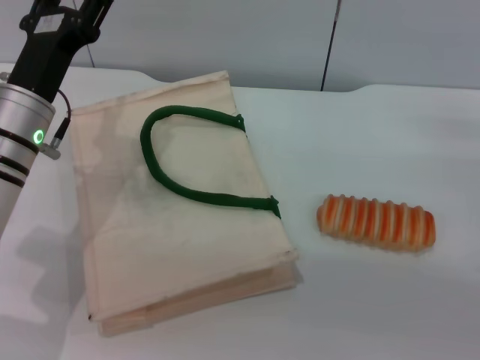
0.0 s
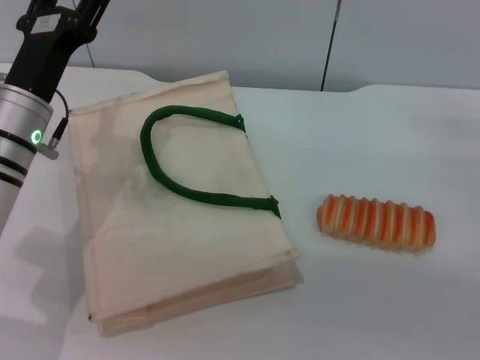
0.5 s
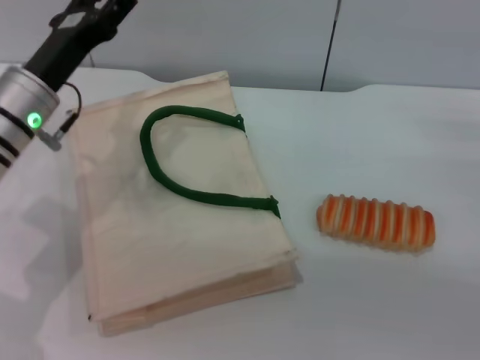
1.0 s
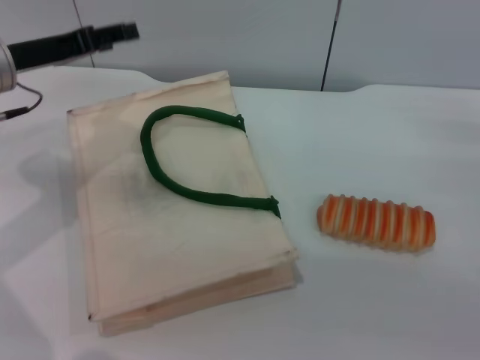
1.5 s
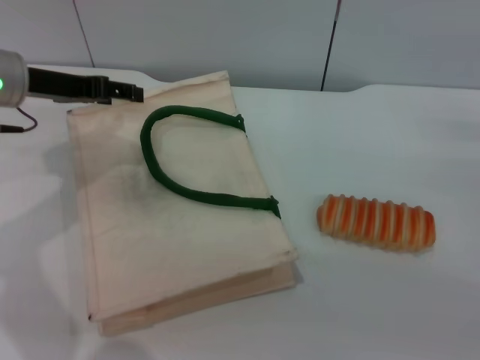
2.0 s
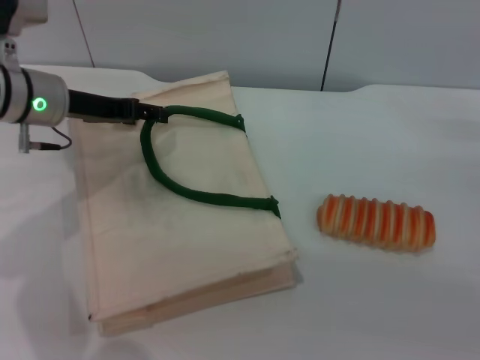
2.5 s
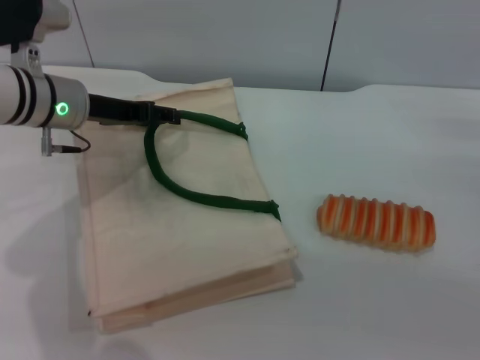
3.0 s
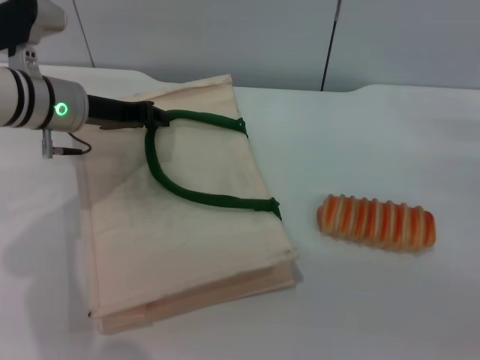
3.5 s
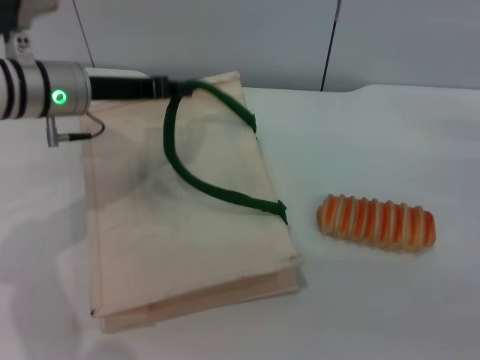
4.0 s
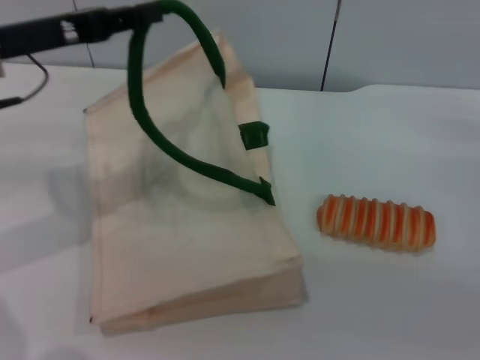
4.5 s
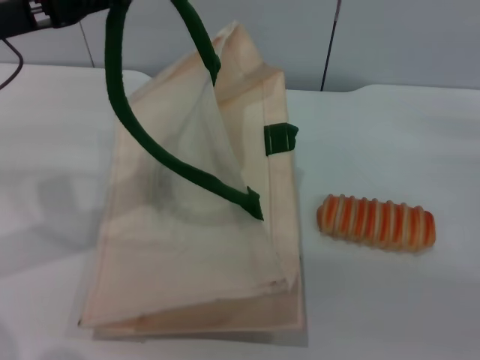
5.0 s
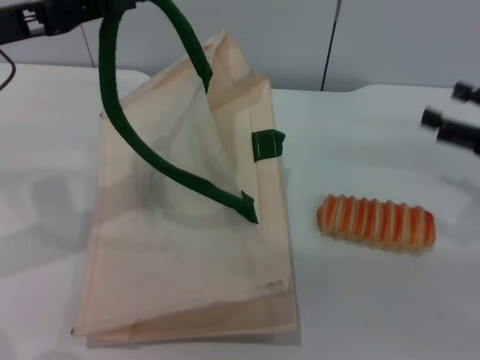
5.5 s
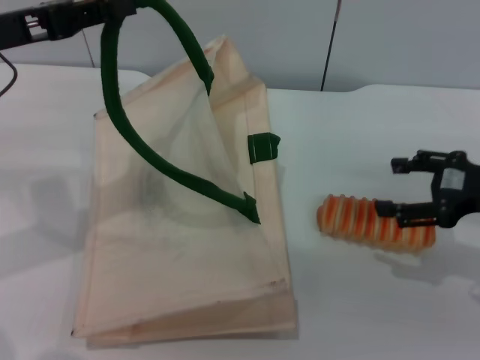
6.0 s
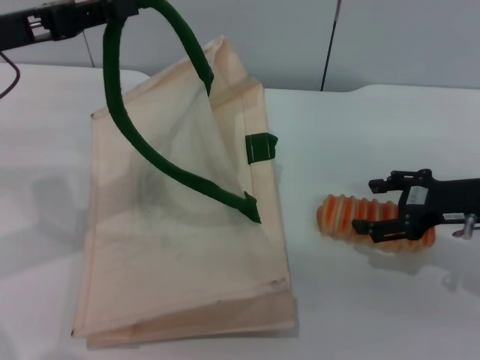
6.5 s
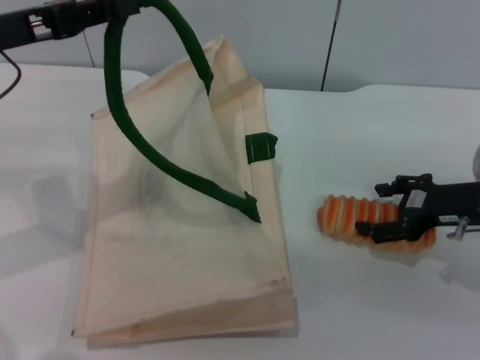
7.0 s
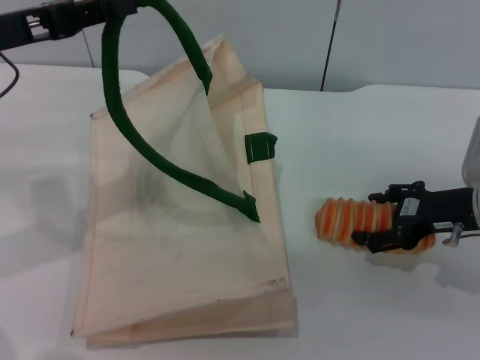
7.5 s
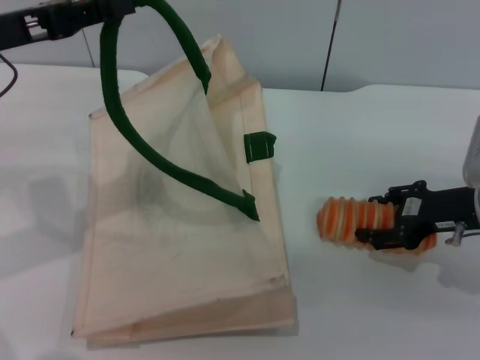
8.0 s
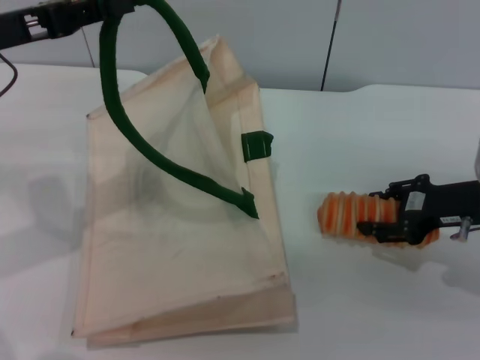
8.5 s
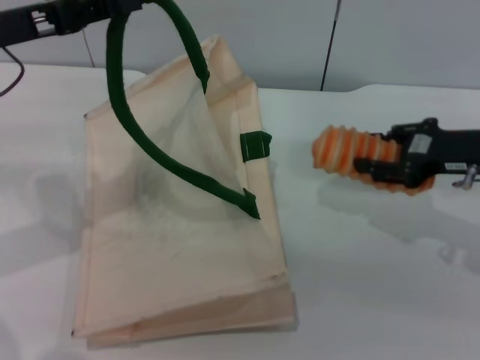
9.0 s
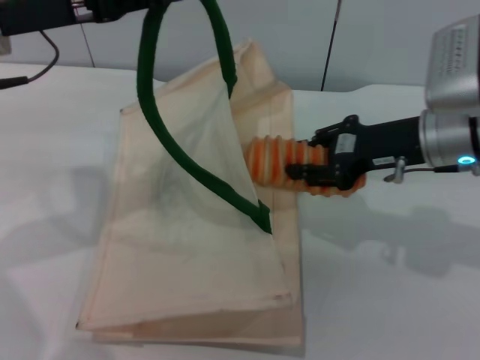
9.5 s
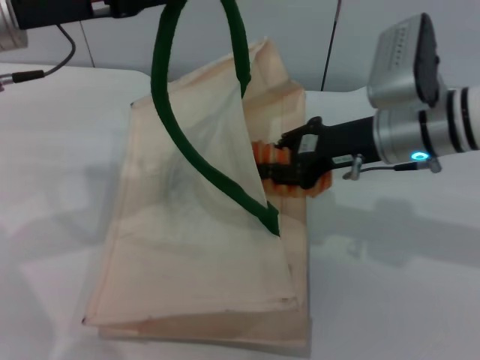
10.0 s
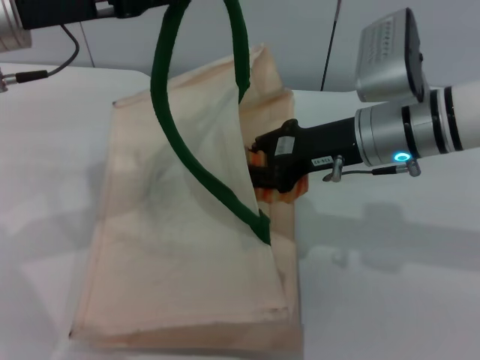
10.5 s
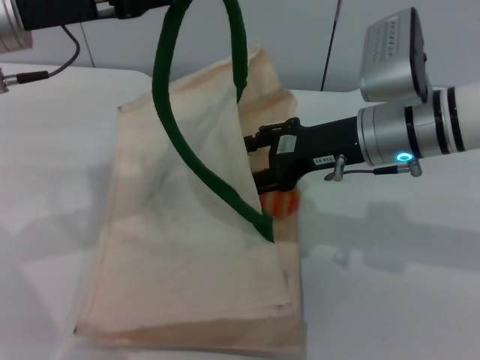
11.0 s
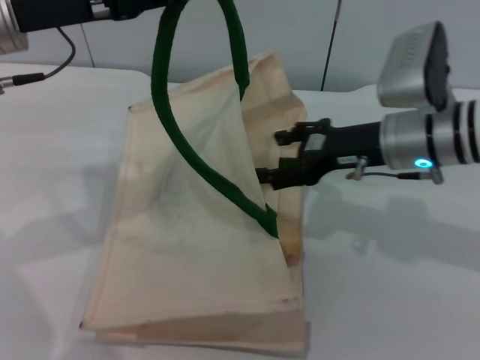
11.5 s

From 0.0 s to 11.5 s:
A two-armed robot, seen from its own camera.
Task of the whole recording: pick up the bread from the table and place it in the white handbag.
Step, from 0.0 s to 5.0 s: Lift the woven bag with the left gripper to open it.
Step, from 5.5 s to 9.0 s: Pick up the bread with the right gripper.
From 0.0 s to 2.0 s: The left gripper heads upward, forward and to the left, covering some 10 cm.
From 2.0 s to 4.0 s: The left gripper moves to the right, about 5 cm, and closes up.
From 4.0 s to 6.0 s: The right gripper heads upward, covering about 5 cm, while the left gripper travels to the left, upward and backward by about 10 cm.
From 6.0 s to 7.5 s: The right gripper shifts by approximately 5 cm.
From 7.5 s to 9.5 s: The right gripper shifts approximately 10 cm to the left and upward, and closes its fingers.
From 9.5 s to 11.5 s: The right gripper opens.

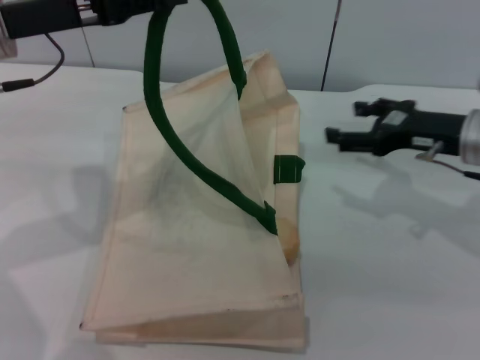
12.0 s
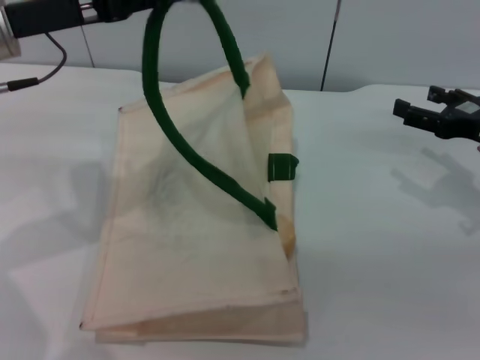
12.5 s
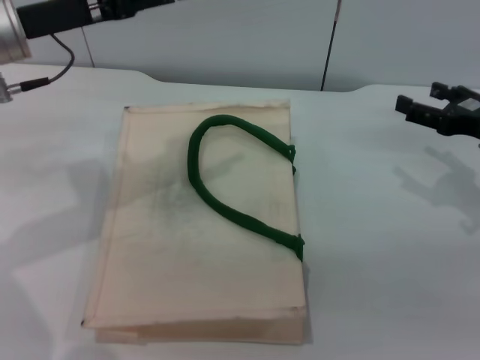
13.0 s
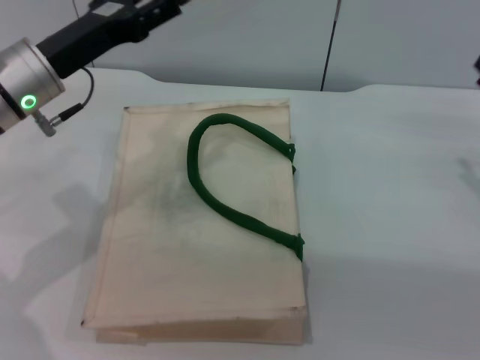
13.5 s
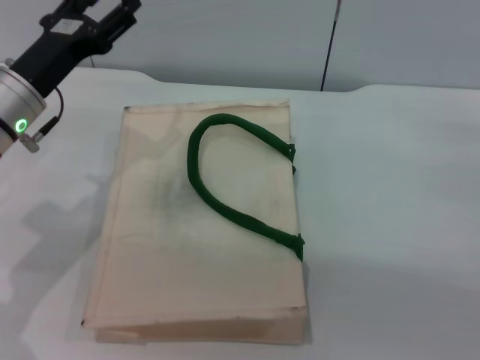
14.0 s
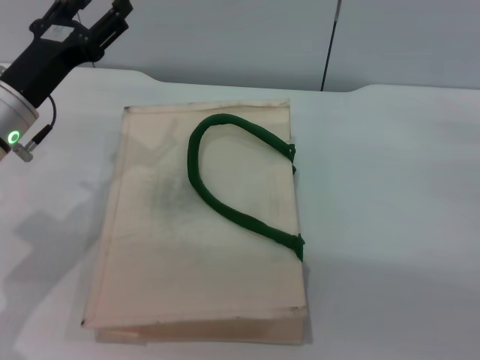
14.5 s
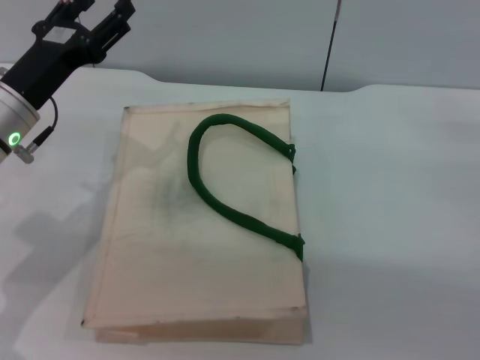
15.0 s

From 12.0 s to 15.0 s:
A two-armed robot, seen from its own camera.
Task of the whole recording: pick up the bread from the table and place it in the white handbag.
Step, from 12.5 s to 13.5 s: Lower the woven bag with the left gripper to close it.
From 12.0 s to 13.5 s: The right gripper shifts approximately 10 cm to the right and backward; the left gripper heads downward, covering roughly 5 cm, and opens.
From 13.5 s to 15.0 s: There are only small adjustments of the grippers.

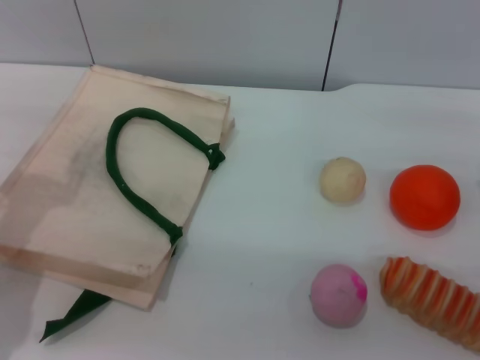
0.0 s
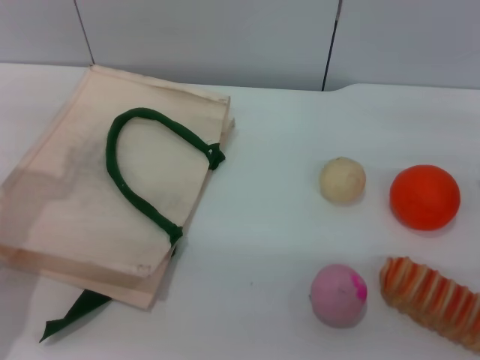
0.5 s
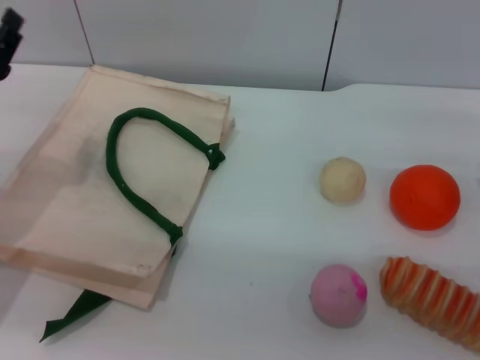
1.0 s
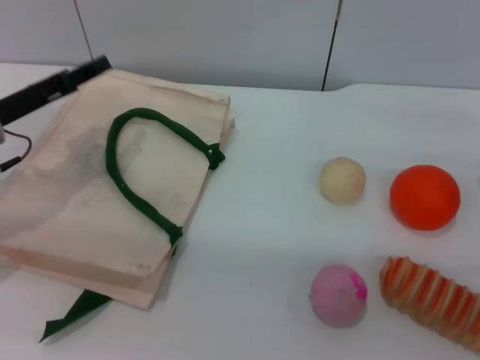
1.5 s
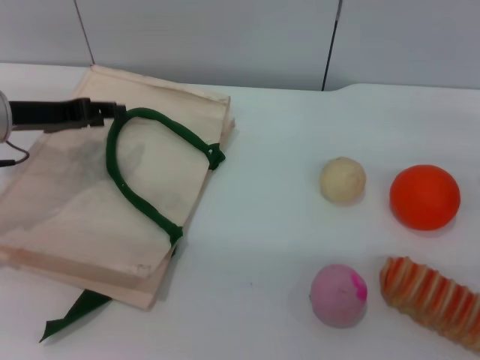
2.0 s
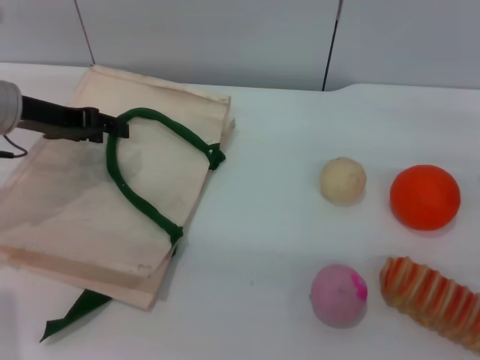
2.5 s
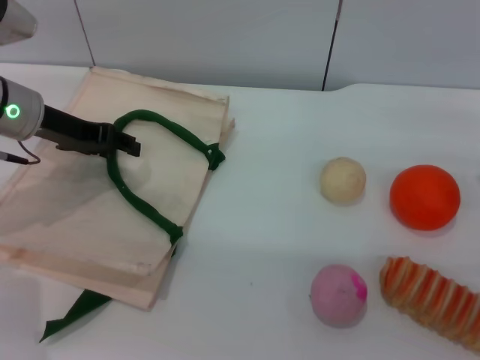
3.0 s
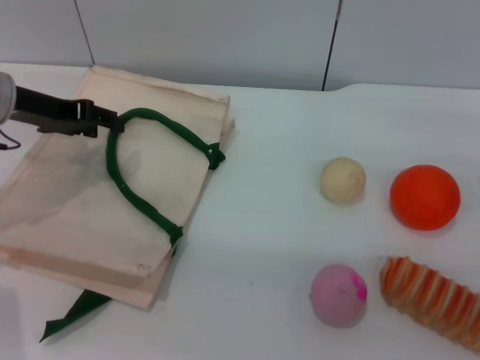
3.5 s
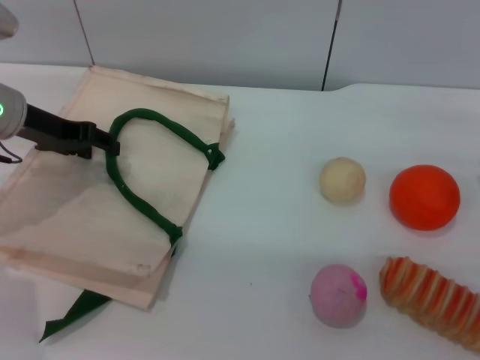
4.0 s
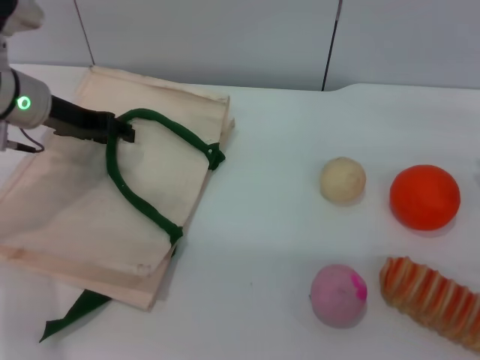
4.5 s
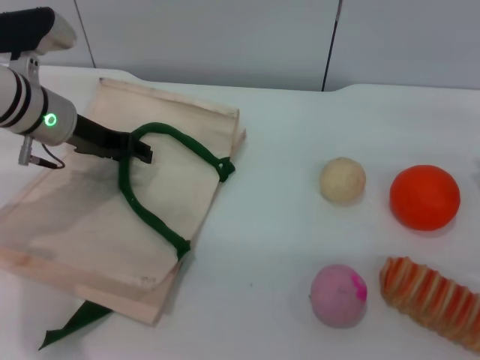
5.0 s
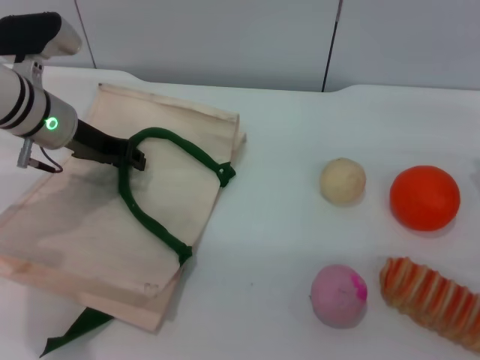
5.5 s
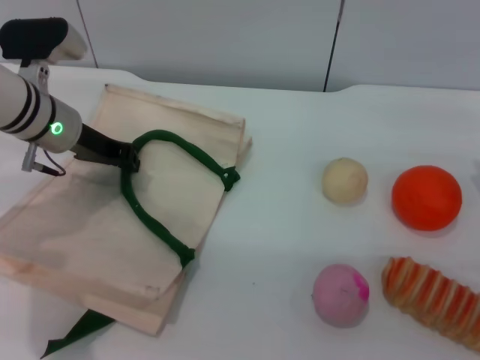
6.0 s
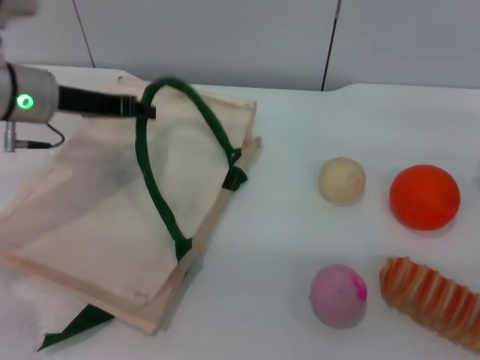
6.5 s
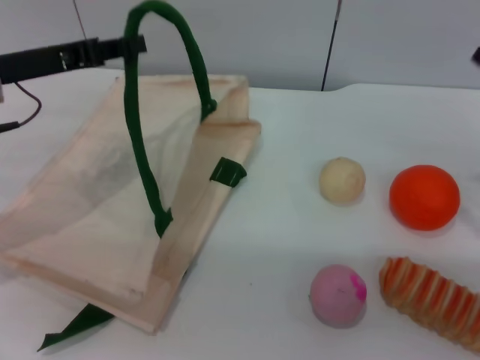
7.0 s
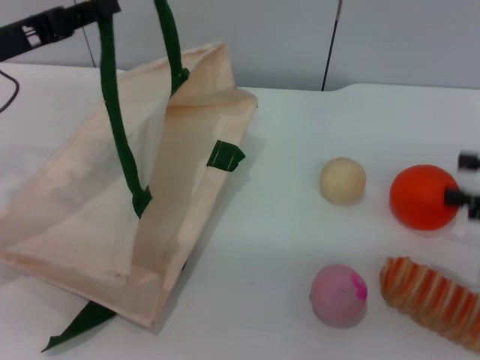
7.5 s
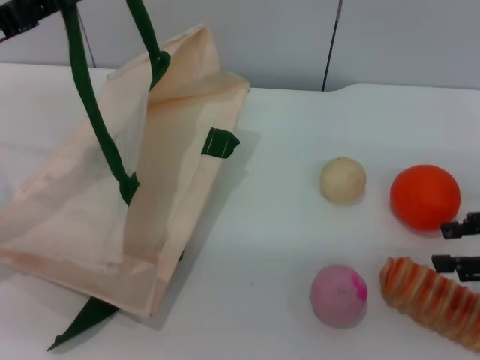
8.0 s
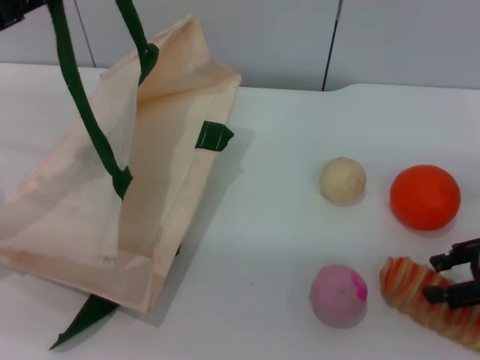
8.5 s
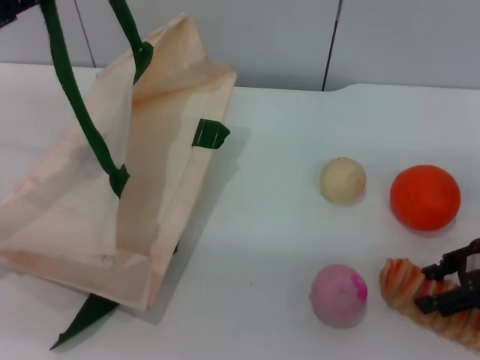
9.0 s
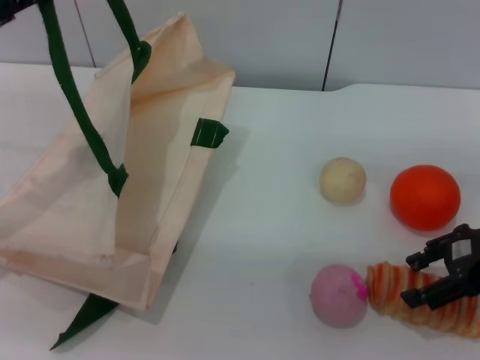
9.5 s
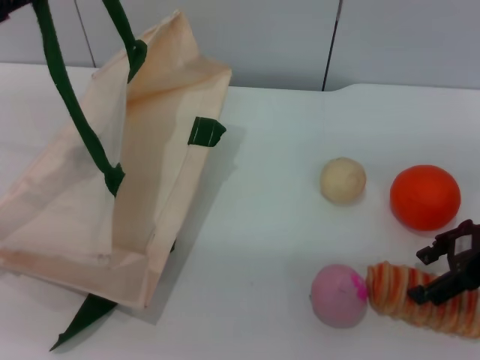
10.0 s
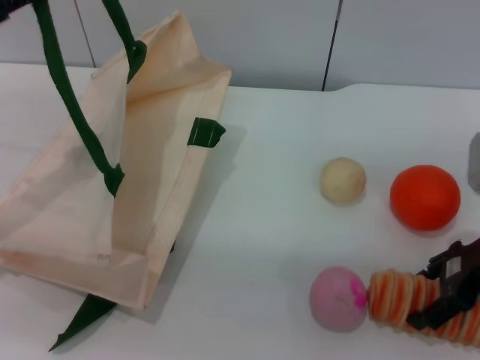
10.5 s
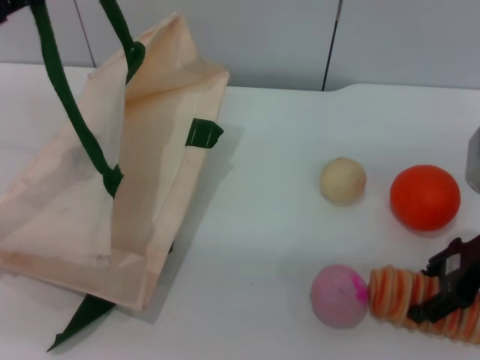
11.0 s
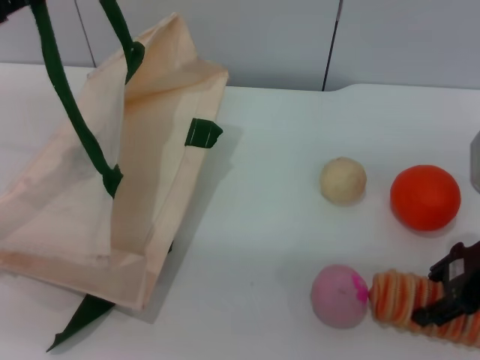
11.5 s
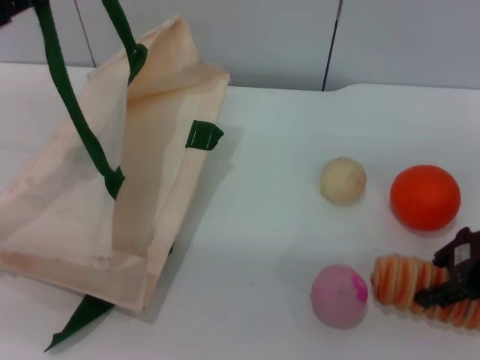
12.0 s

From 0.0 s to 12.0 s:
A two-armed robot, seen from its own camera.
Task of the whole recording: pick up the bread and egg yolk pastry from the table and place it in the white handbag.
Step, from 0.0 s to 6.5 s: Lift the woven bag with the left gripper to open it.
From 0.0 s to 2.0 s: The left gripper travels forward by some 10 cm.
From 4.0 s to 6.0 s: The left gripper is displaced to the right by roughly 5 cm, and closes its fingers.
From 6.0 s to 8.0 s: The right gripper moves about 5 cm. The left gripper travels to the left, backward and upward by some 15 cm.
From 8.0 s to 10.0 s: The right gripper heads to the left, covering roughly 5 cm.
From 10.0 s to 12.0 s: The right gripper closes up.
